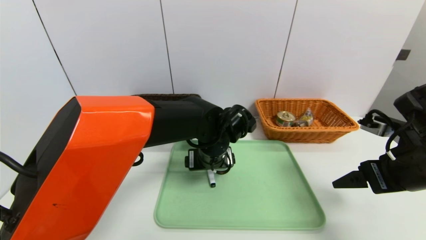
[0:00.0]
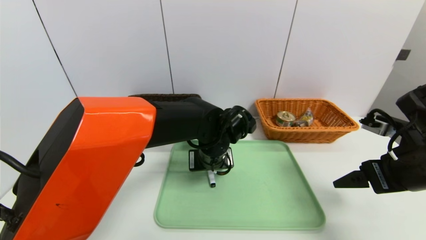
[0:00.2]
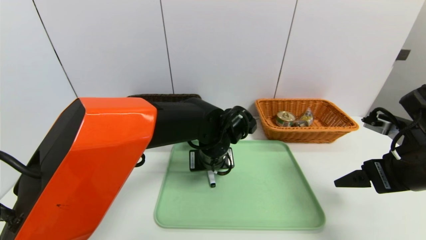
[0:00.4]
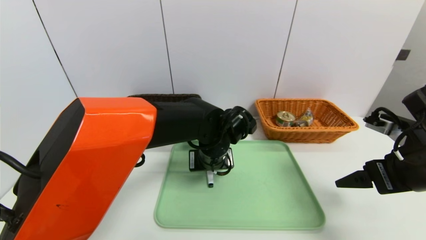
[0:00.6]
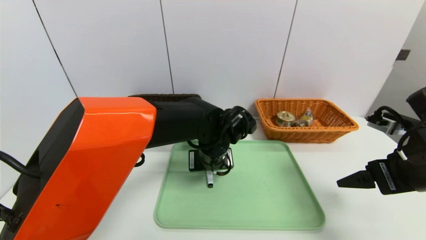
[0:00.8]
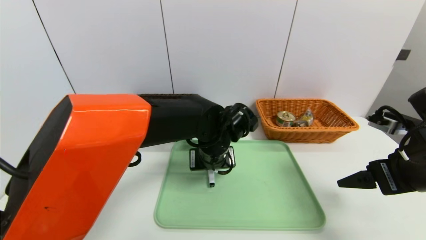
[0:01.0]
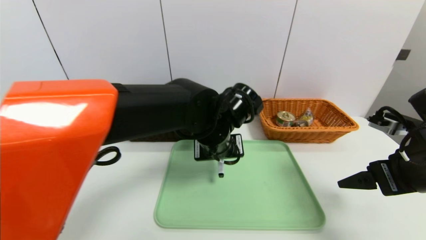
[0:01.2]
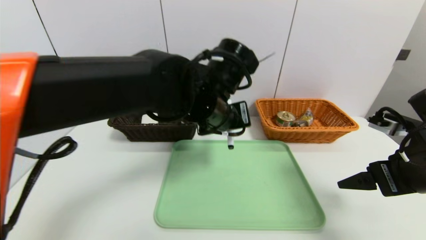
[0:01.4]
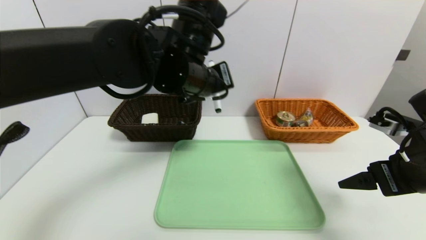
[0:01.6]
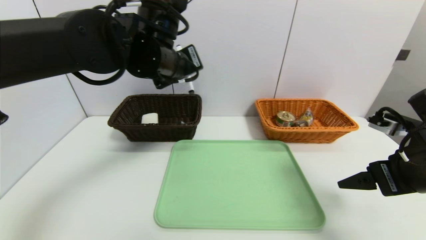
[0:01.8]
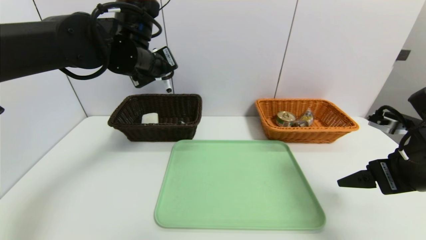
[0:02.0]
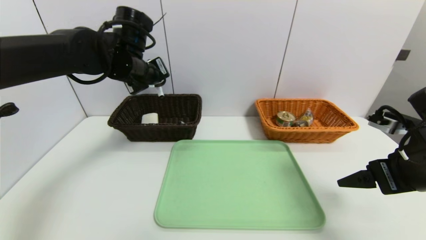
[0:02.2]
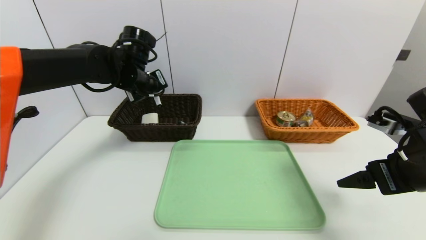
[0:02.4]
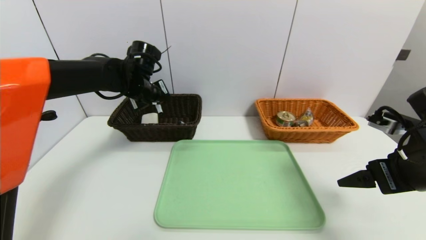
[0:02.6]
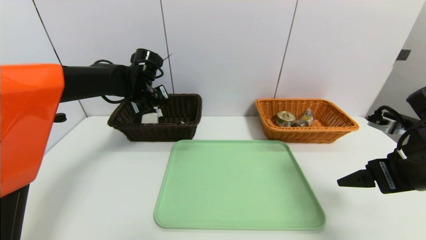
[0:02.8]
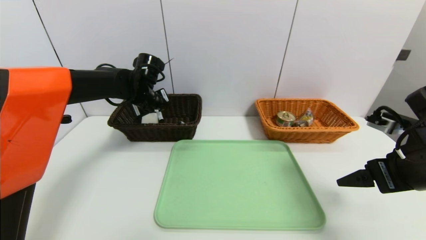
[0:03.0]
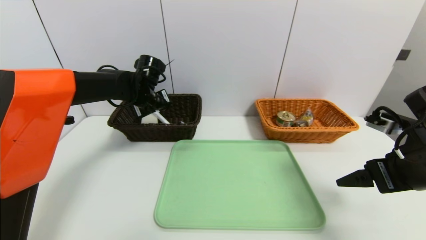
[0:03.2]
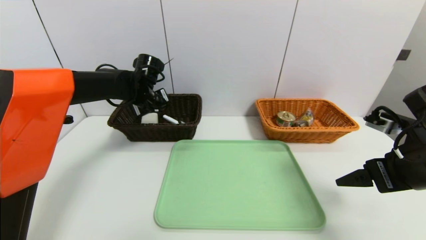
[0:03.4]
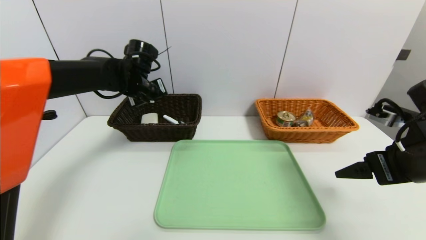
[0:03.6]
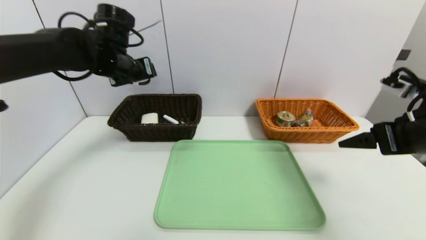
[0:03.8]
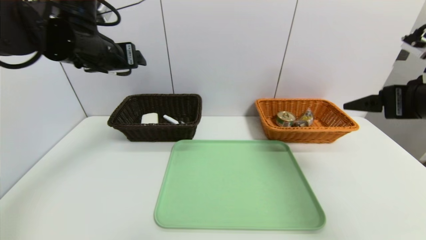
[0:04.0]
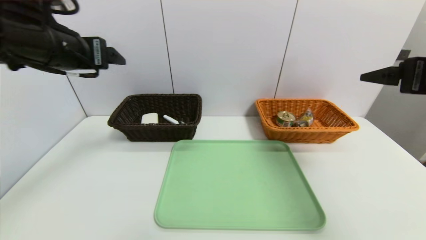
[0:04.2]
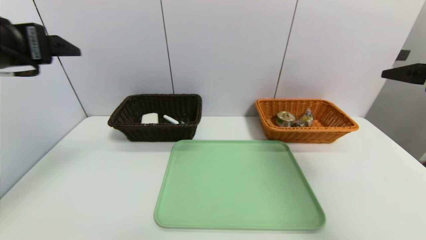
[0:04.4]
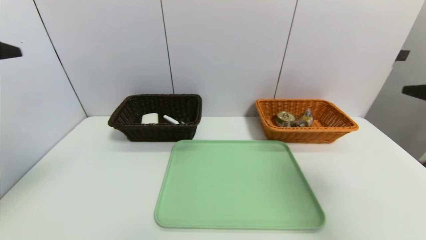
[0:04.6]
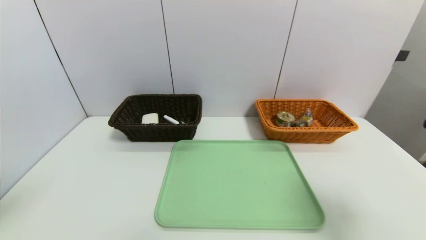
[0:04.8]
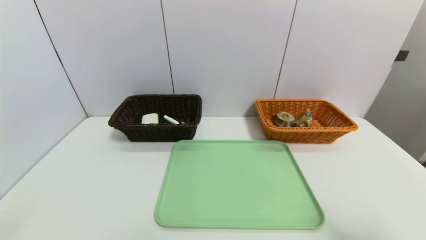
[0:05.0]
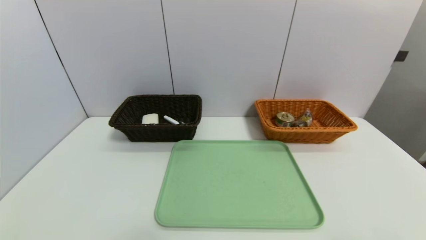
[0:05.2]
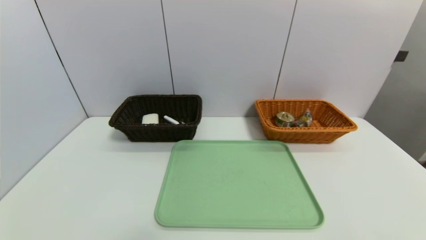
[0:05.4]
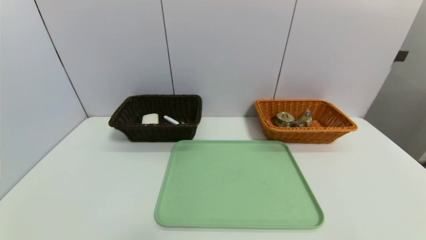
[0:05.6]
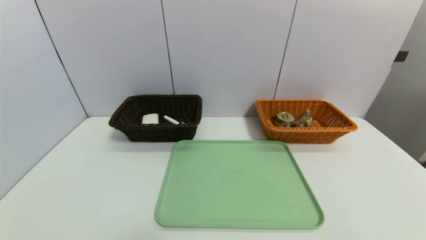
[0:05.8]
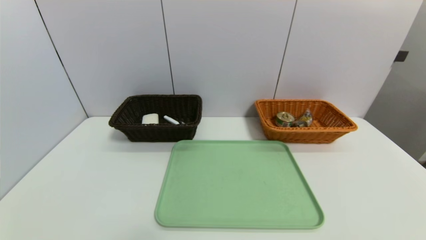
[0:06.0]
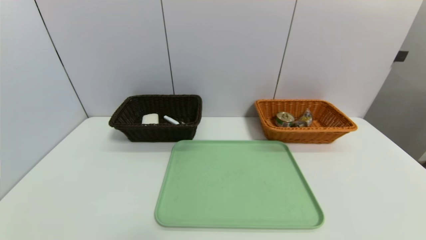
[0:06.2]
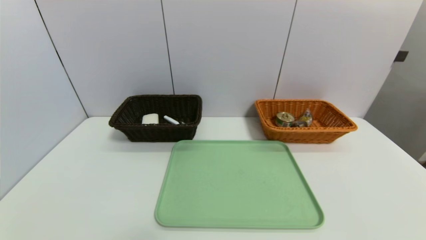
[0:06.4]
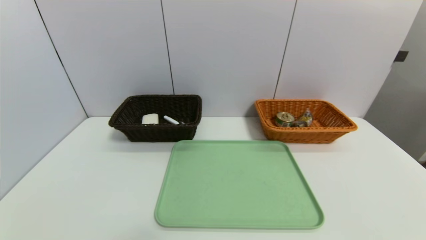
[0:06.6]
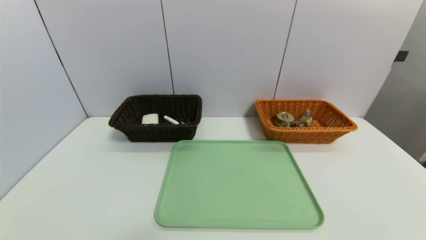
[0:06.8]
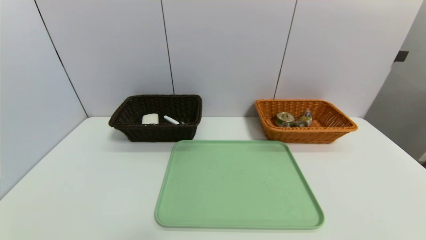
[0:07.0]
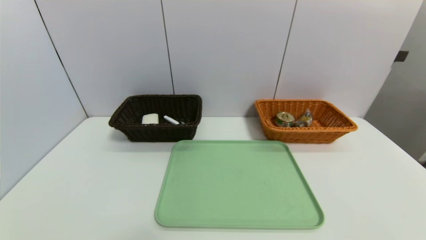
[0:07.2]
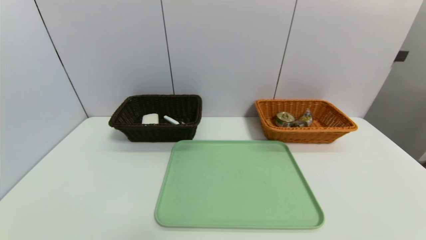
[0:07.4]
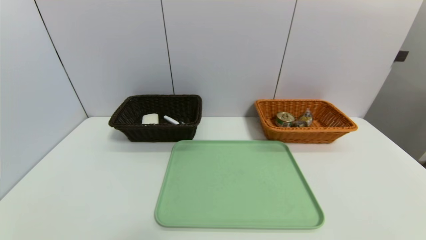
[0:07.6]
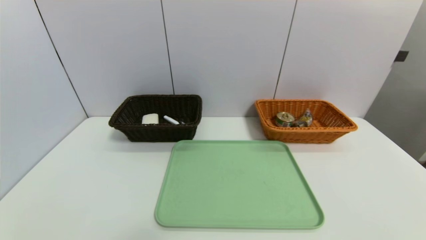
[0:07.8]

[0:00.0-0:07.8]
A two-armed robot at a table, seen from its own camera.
Task of the whole recording: place the food in the right basket with the right gripper, and place the non food items in the left basket with the left gripper.
Step, 0.0 to 3.4 s: Grasp the black marker and put it in the left basket.
0.0 to 1.6 s: The left gripper travels upward by approximately 15 cm, and closes its fingers.
1.6 to 3.2 s: The left gripper is displaced forward, to the left and downward by some 20 cm.
3.2 to 4.6 s: The right gripper is displaced upward and backward by about 10 cm. Meanwhile the left gripper heads backward and upward, covering approximately 35 cm, and opens up.
4.6 to 6.2 s: The right gripper travels backward and downward by approximately 25 cm. Meanwhile the left gripper travels downward and backward by some 30 cm.

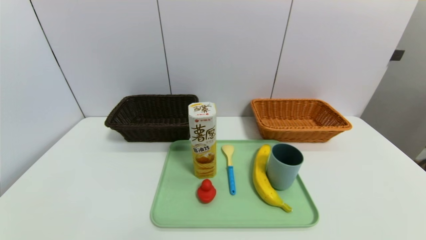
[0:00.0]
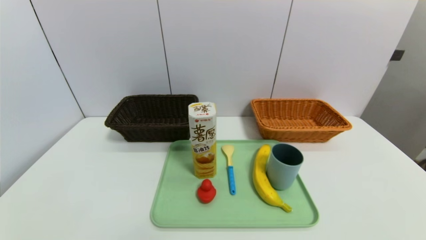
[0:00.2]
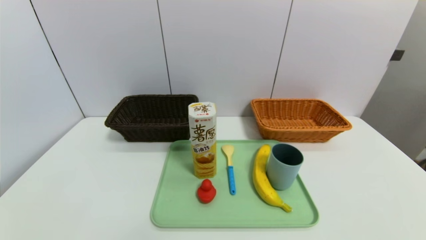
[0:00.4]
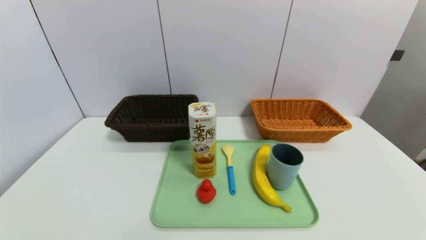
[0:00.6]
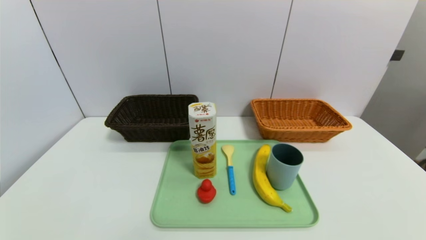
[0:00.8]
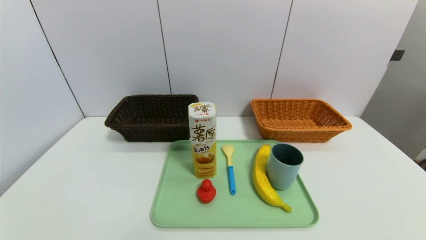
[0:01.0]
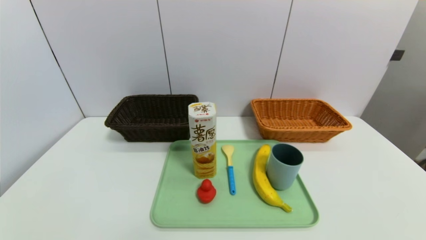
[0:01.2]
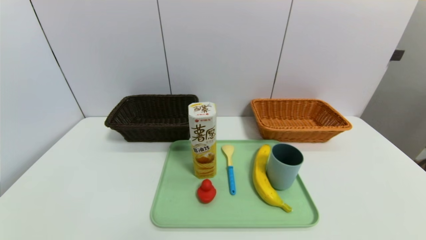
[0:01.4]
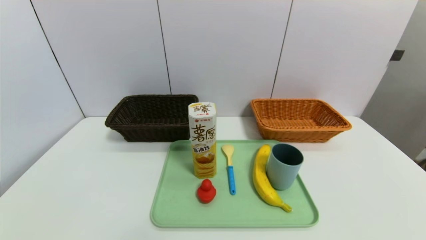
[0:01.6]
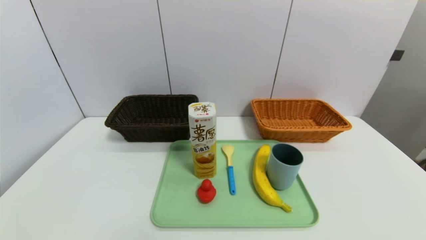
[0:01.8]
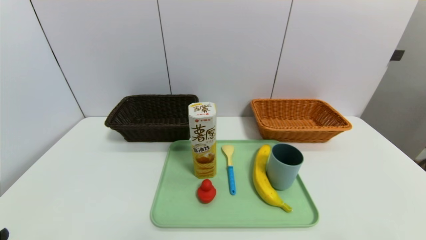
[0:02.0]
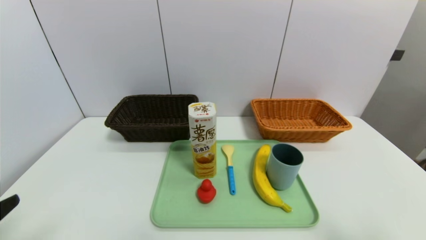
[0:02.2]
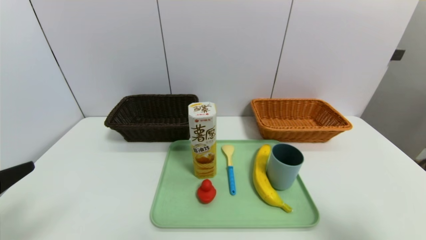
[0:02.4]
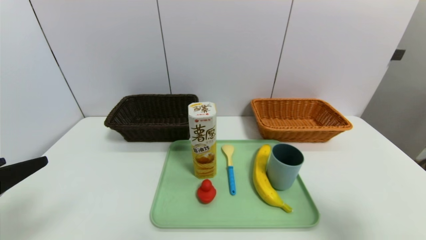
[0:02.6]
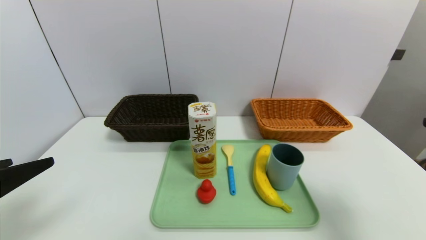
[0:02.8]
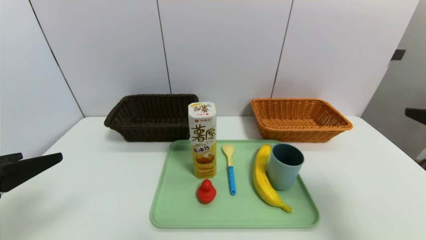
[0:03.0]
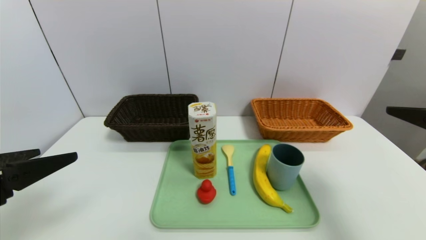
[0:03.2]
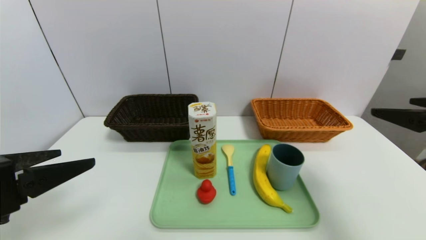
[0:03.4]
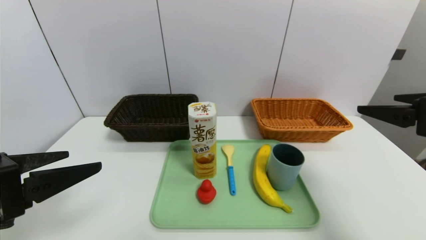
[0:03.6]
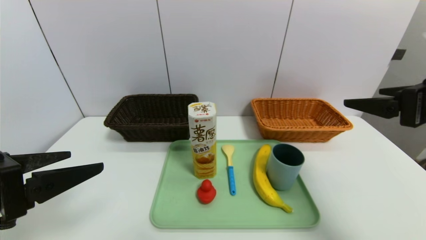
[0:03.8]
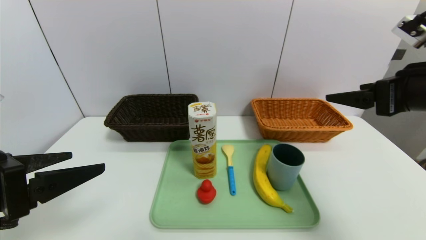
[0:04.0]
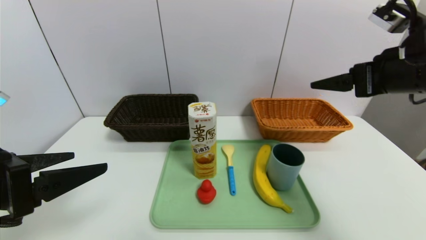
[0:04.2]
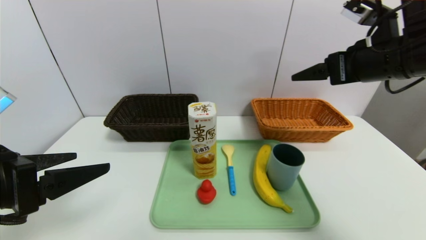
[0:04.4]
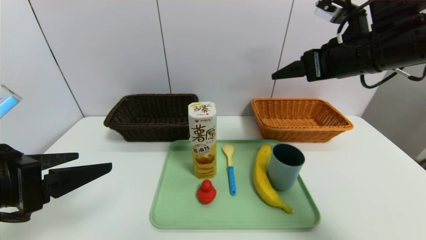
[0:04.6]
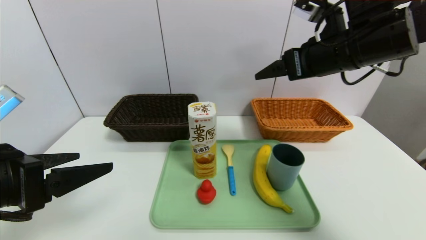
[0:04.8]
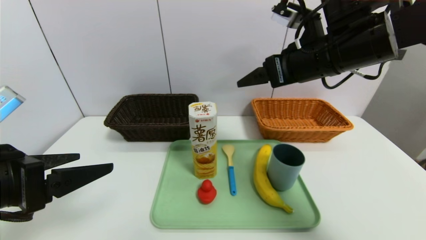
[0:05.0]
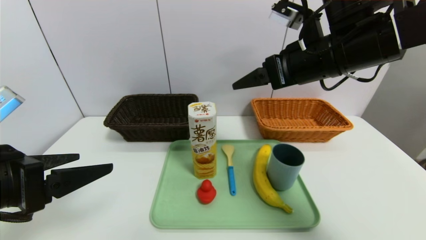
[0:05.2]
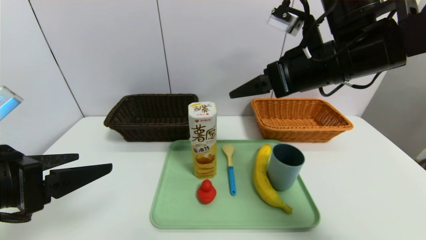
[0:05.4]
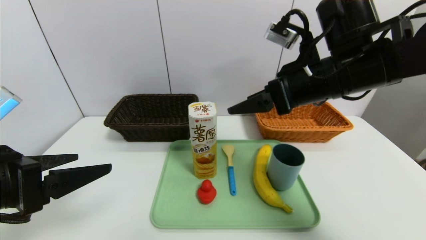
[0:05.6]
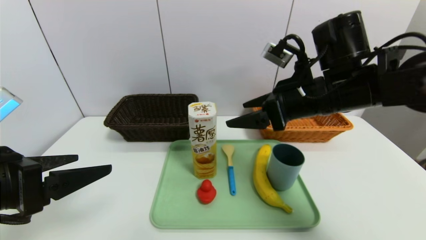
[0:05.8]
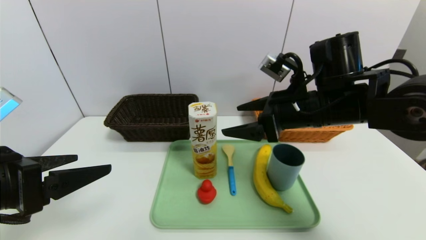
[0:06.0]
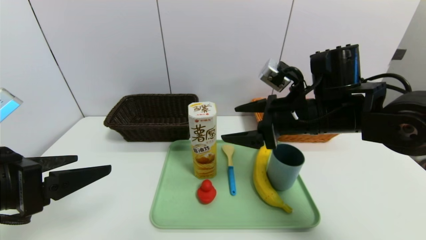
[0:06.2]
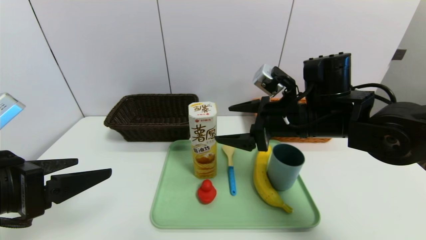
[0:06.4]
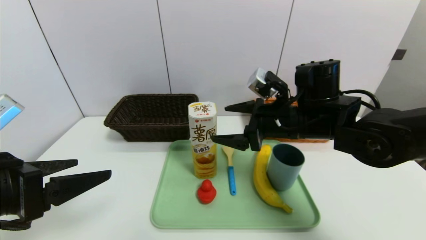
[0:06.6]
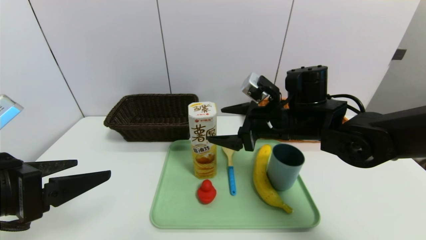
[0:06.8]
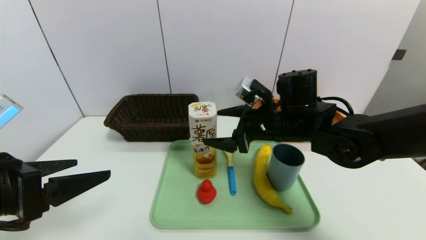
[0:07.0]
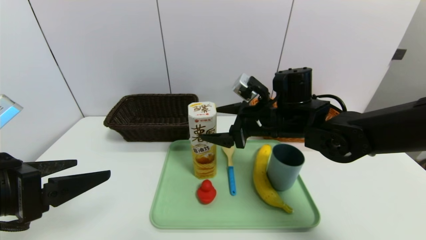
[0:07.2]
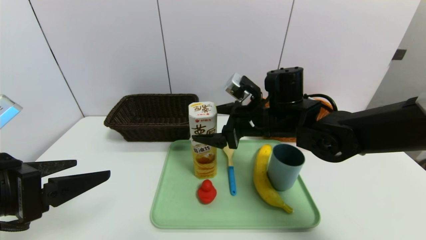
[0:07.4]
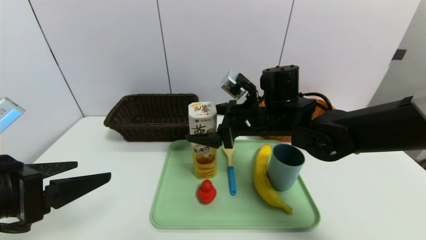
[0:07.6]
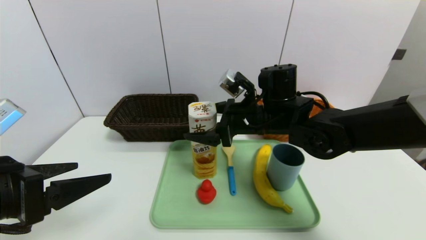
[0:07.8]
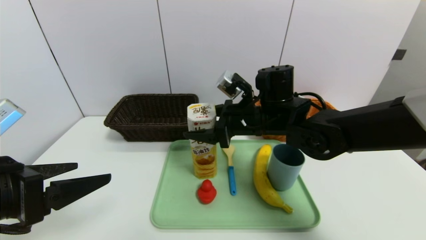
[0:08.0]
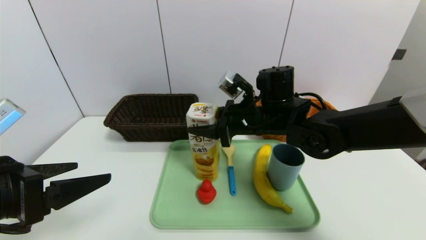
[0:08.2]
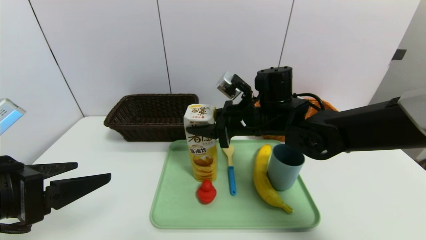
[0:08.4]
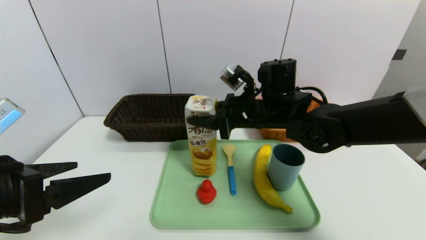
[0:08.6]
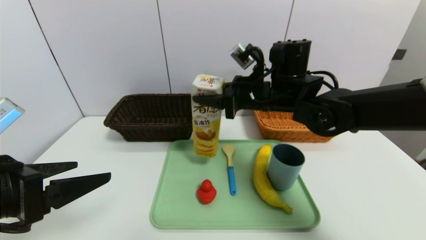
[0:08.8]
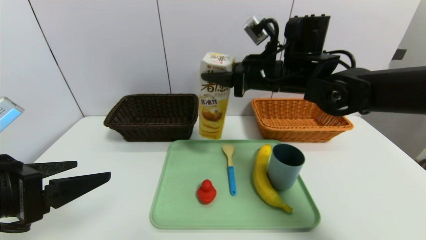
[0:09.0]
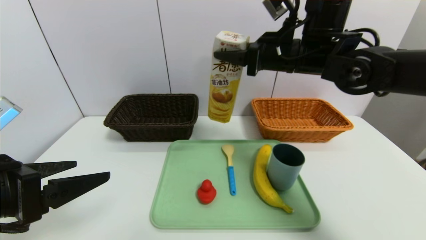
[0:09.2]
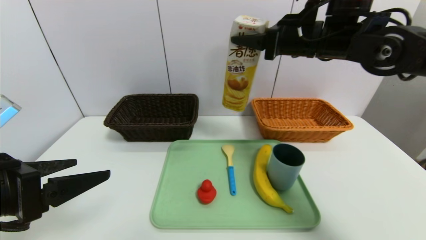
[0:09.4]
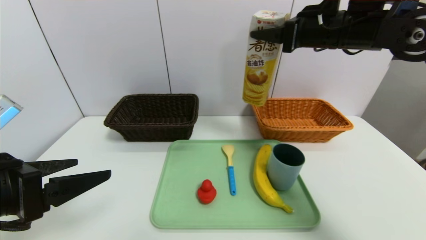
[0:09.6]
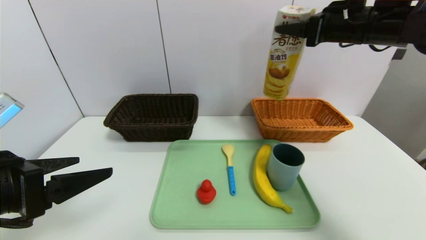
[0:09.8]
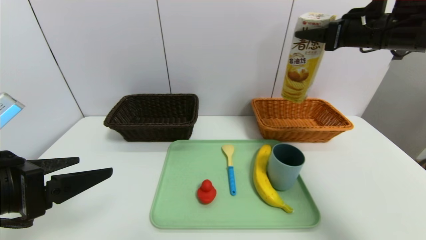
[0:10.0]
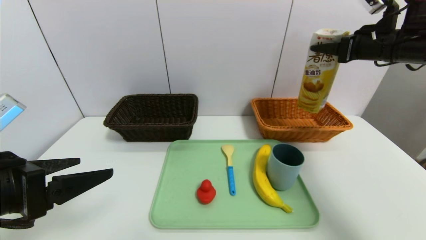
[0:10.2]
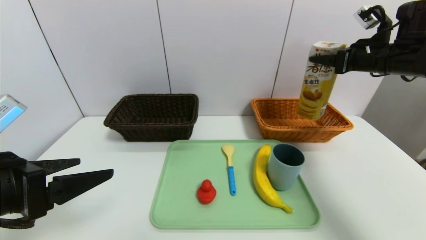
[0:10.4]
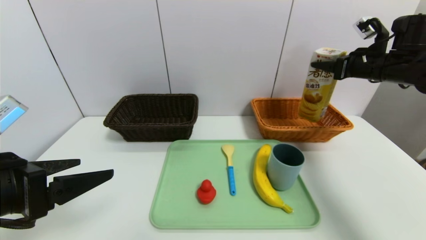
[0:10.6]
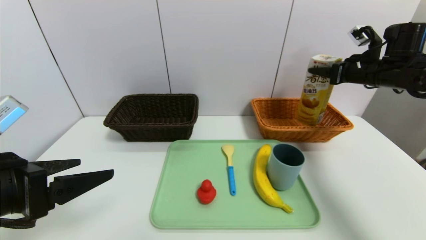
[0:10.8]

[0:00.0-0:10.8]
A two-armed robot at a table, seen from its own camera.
Task of the whole recording: place the food in the right basket with the right gripper, and place the non food items in the left basket with the left gripper.
1.6 to 3.0 s: The left gripper goes approximately 20 cm upward and forward, while the right gripper shifts approximately 20 cm forward and upward.
3.0 to 4.6 s: The right gripper moves forward and to the left, some 20 cm.
4.6 to 6.2 s: The right gripper heads downward and to the left, covering approximately 10 cm.
6.2 to 7.8 s: The right gripper goes some 5 cm to the left.
7.8 to 9.2 s: The right gripper shifts about 15 cm upward and to the right, and closes up.
9.2 to 10.8 s: The right gripper travels to the right by roughly 20 cm.
